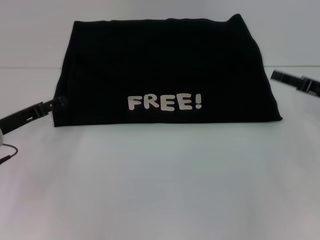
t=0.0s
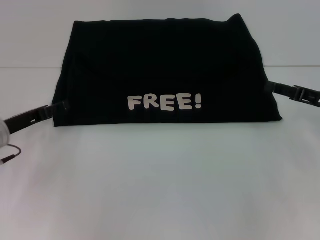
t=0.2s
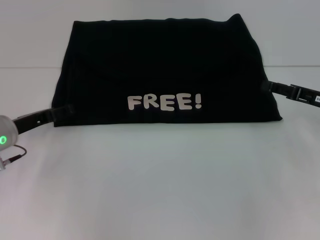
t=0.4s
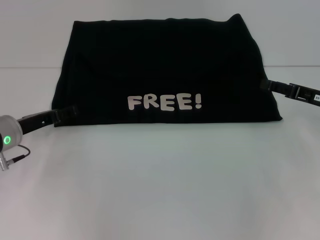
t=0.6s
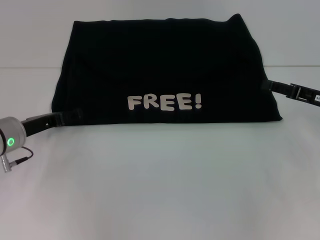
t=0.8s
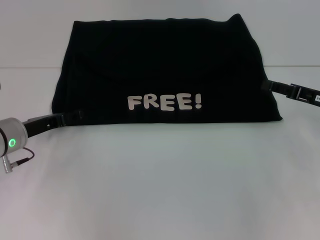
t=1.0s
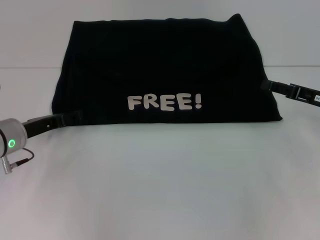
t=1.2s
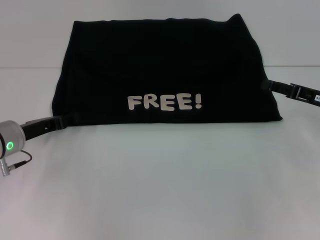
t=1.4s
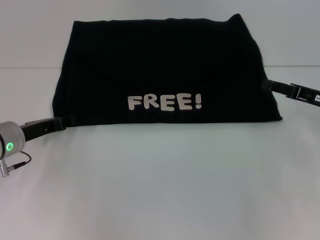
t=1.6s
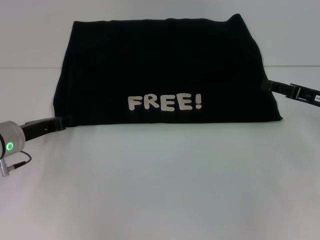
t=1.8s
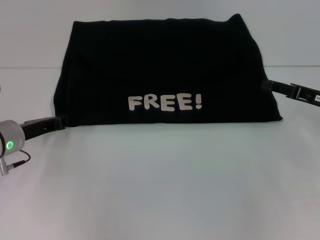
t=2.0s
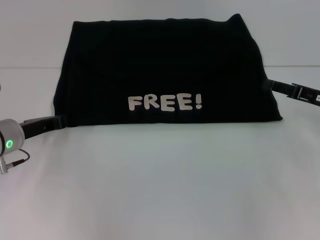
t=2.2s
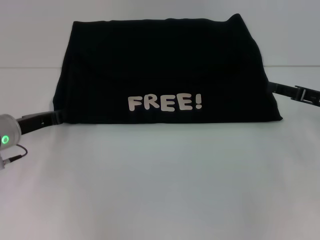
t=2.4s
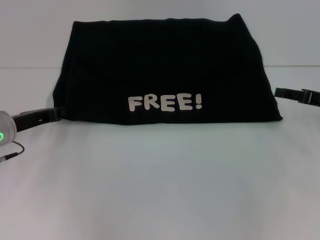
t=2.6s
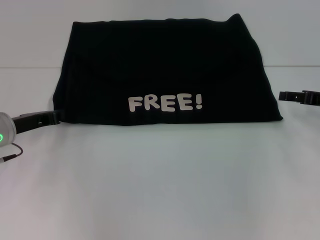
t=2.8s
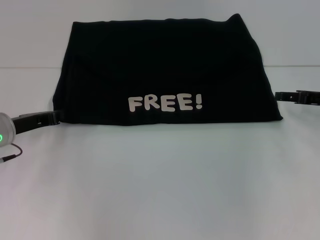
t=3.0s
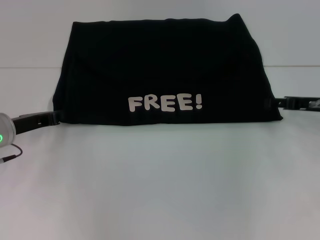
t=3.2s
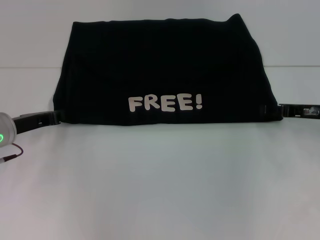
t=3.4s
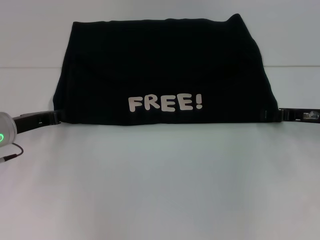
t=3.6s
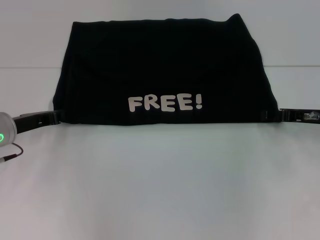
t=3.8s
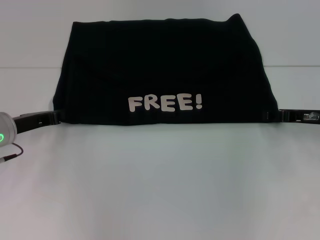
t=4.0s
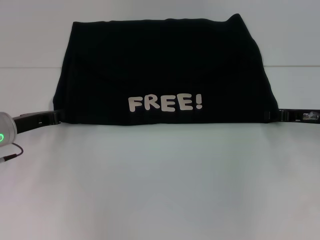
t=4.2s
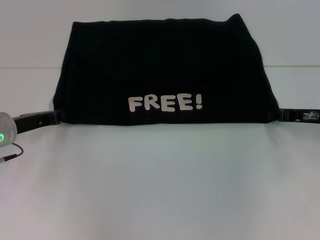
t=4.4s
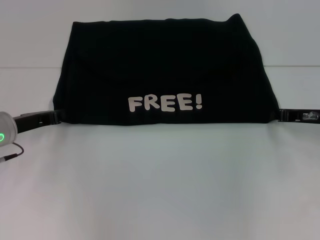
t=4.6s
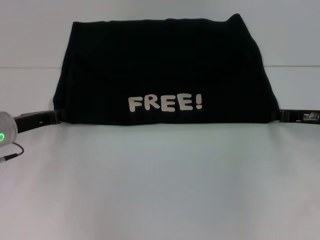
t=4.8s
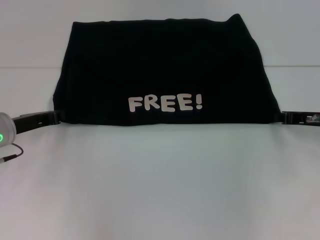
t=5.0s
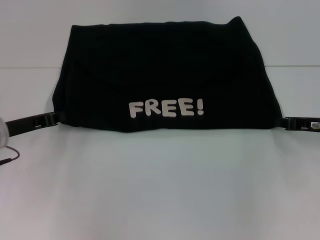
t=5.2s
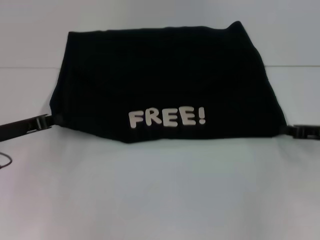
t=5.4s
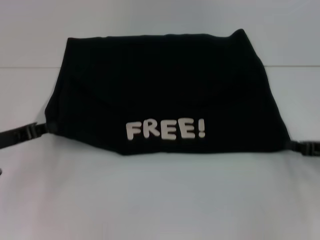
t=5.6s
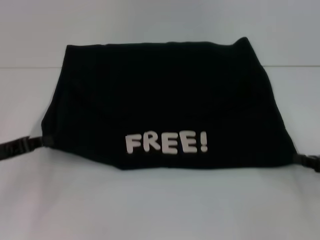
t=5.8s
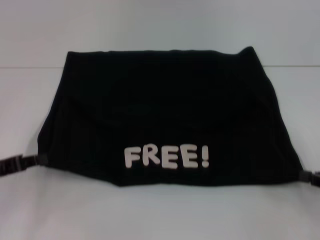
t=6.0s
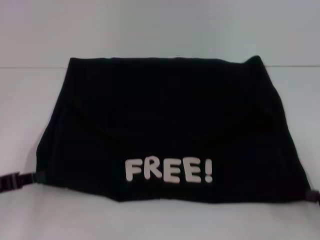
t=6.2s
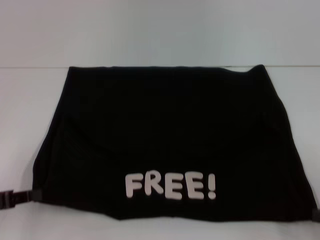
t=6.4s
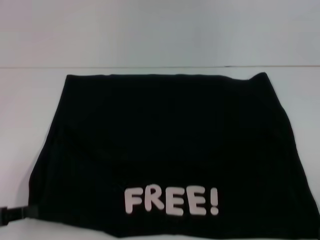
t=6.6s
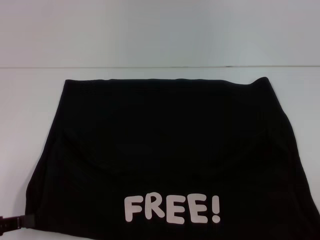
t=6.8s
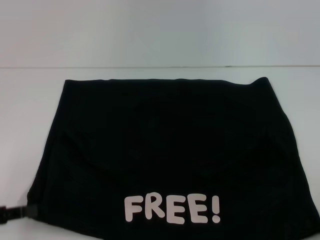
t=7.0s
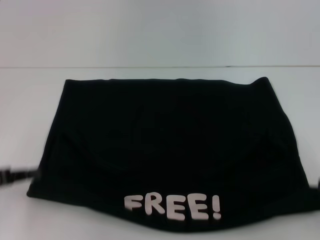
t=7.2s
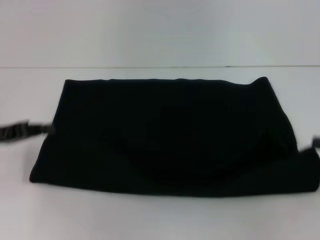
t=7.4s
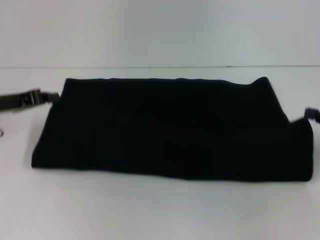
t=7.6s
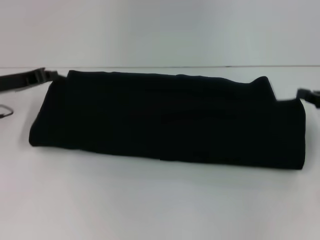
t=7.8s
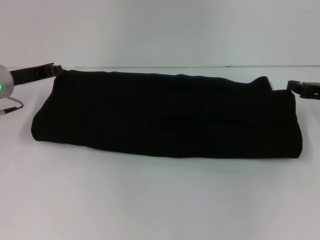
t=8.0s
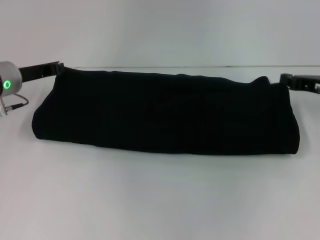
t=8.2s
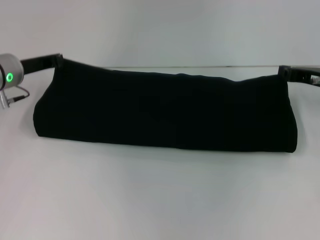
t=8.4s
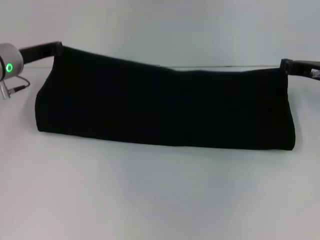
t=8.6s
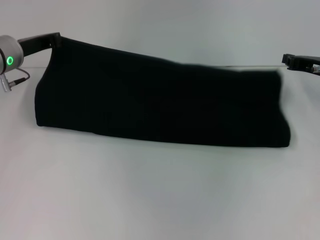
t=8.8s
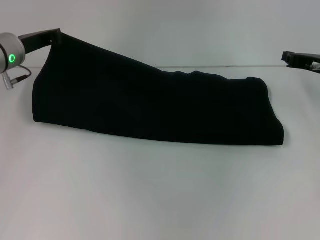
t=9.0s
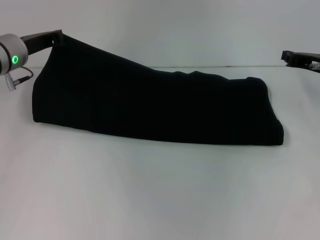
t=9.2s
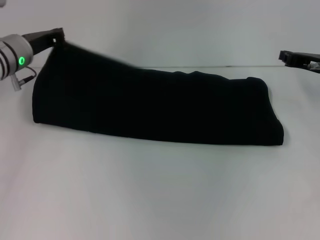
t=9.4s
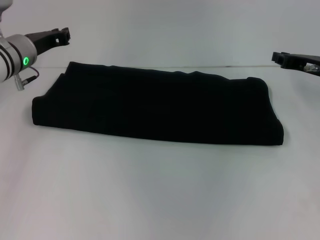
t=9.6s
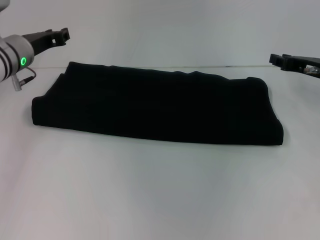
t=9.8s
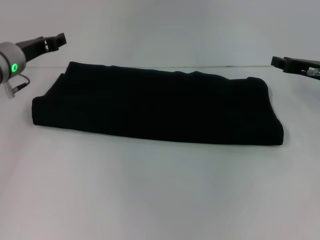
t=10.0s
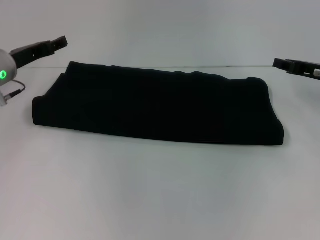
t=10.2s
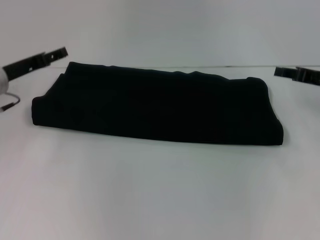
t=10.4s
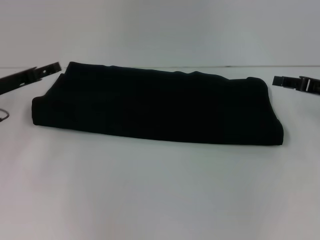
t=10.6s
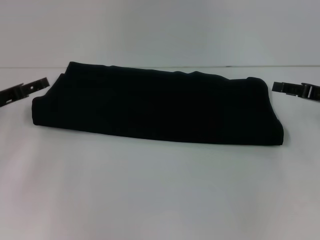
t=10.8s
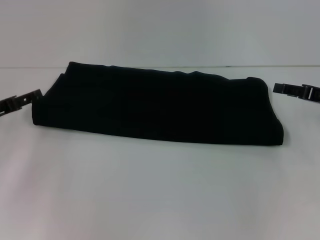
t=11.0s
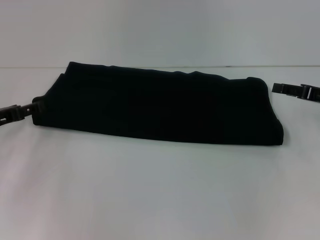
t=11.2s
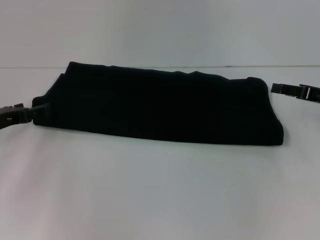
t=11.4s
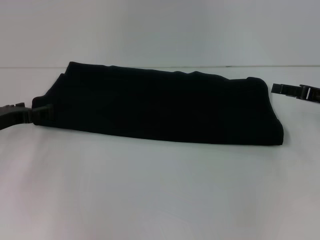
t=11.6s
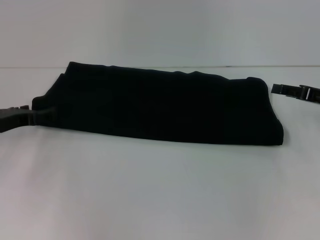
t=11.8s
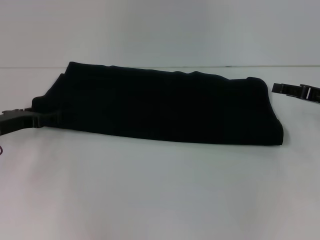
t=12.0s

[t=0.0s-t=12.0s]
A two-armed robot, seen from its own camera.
Step, t=0.0s to t=6.6s: Pull the clothes with your left hand.
Step, t=0.0s to t=6.6s: Pull the clothes with your right hand.
Step, t=6.8s to t=9.6s: Fold the clothes with your left hand.
Step, t=6.8s to t=9.6s: Fold the clothes with your right hand.
t=0.0s to t=1.6s: The grippers move only a little.
t=1.6s to t=3.0s: The left gripper closes its fingers.
t=3.0s to t=4.4s: The grippers move only a little.
t=4.4s to t=6.0s: The right gripper goes some 15 cm backward and to the right, and closes. Meanwhile the left gripper is displaced backward by roughly 10 cm.
t=6.0s to t=7.6s: The left gripper moves forward, approximately 10 cm. Meanwhile the right gripper travels backward and back again, about 10 cm each way.
t=7.6s to t=9.0s: The left gripper goes some 10 cm forward and to the right, while the right gripper shifts approximately 15 cm forward and to the left.
t=9.0s to t=10.4s: The right gripper opens its fingers. Meanwhile the left gripper ends up some 5 cm from where it was, and opens.
t=10.4s to t=12.0s: The left gripper moves some 5 cm.

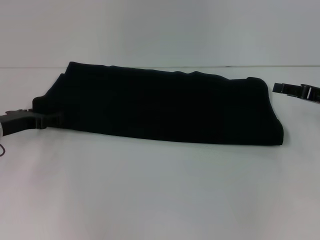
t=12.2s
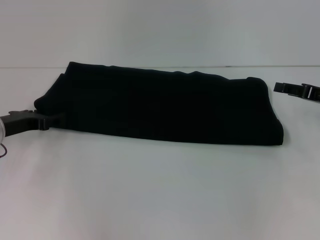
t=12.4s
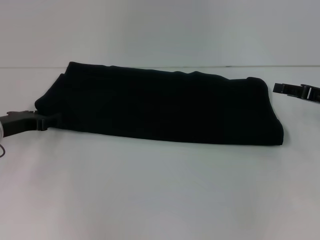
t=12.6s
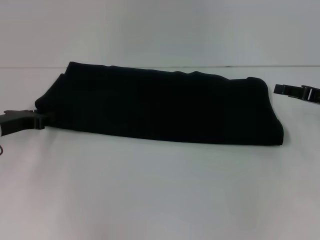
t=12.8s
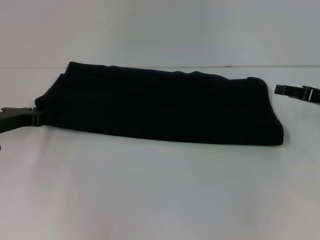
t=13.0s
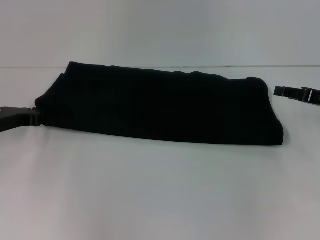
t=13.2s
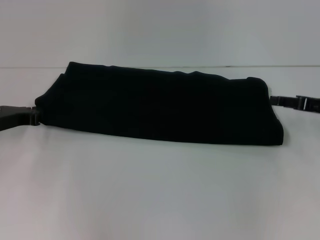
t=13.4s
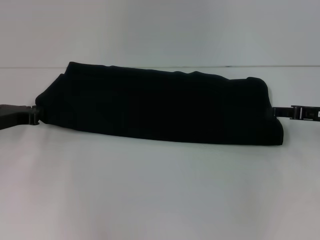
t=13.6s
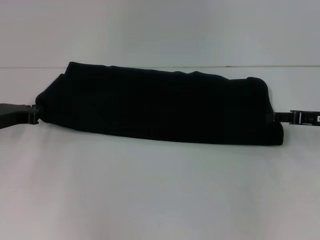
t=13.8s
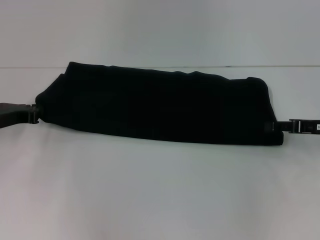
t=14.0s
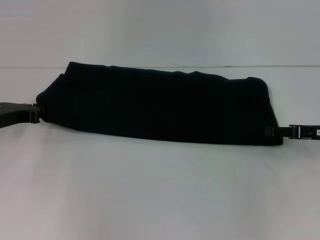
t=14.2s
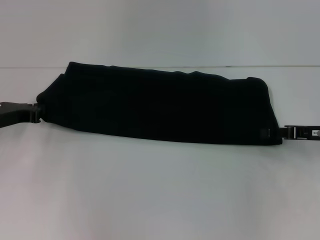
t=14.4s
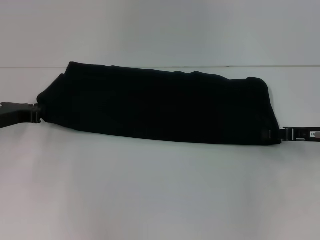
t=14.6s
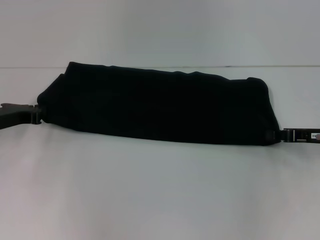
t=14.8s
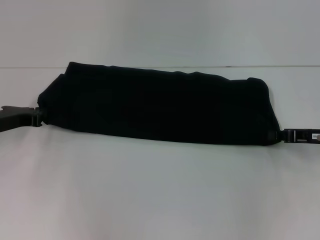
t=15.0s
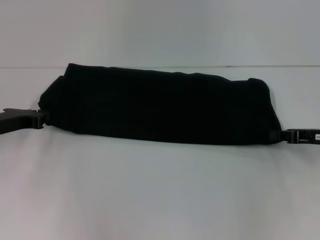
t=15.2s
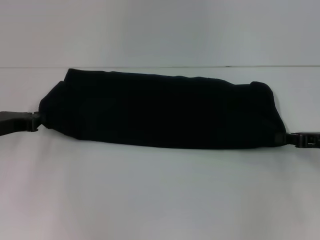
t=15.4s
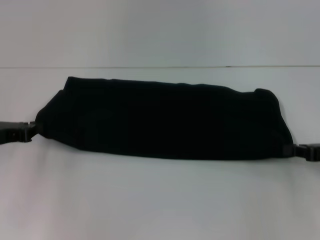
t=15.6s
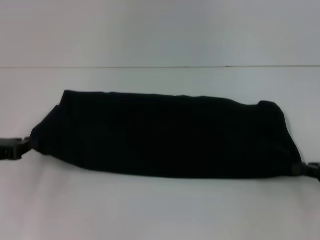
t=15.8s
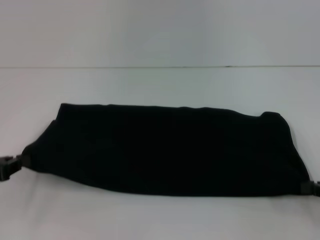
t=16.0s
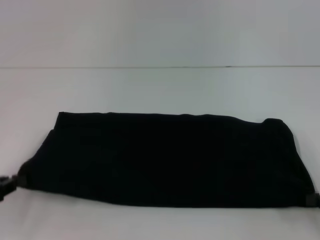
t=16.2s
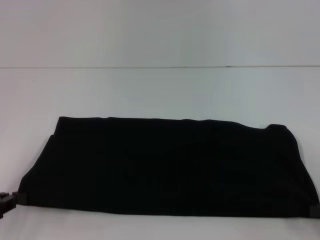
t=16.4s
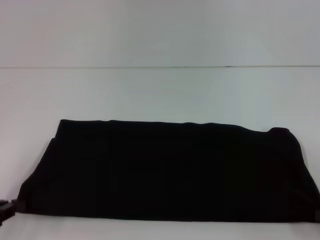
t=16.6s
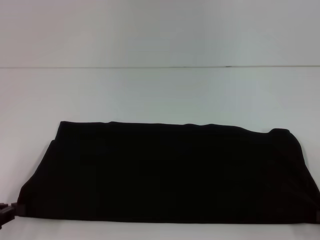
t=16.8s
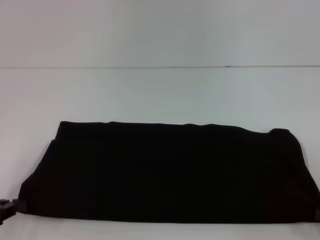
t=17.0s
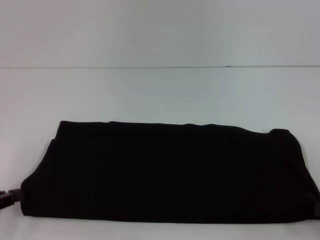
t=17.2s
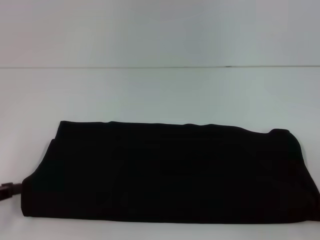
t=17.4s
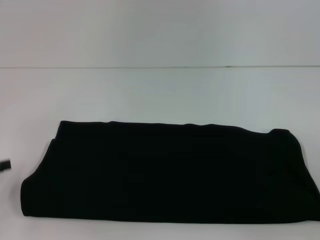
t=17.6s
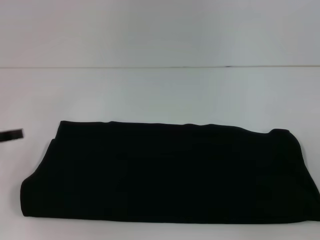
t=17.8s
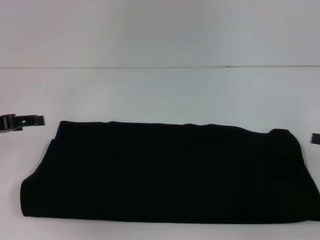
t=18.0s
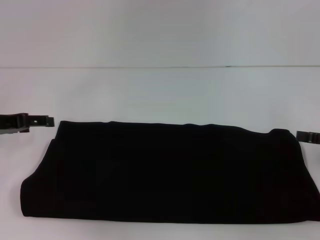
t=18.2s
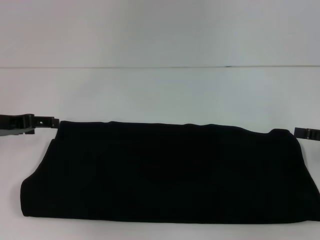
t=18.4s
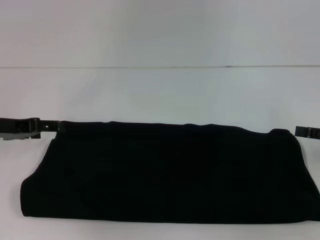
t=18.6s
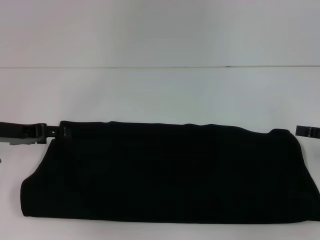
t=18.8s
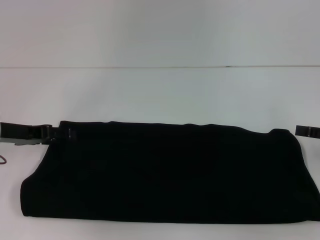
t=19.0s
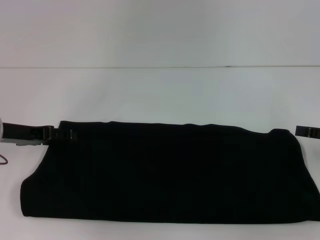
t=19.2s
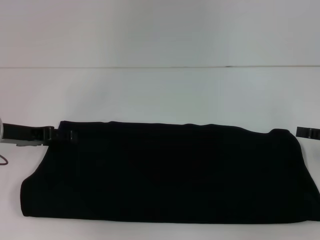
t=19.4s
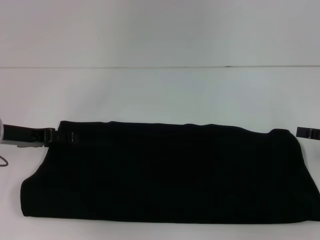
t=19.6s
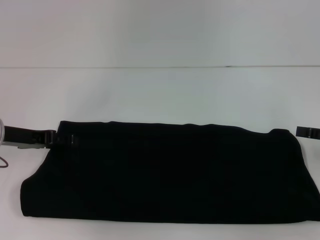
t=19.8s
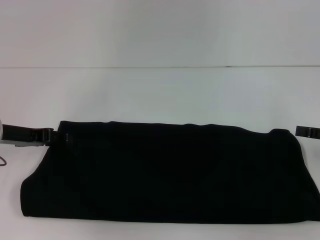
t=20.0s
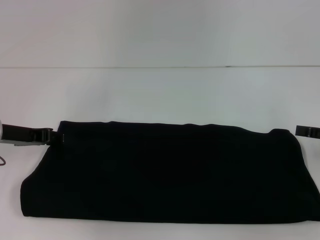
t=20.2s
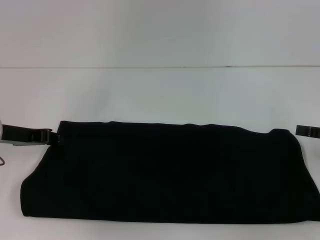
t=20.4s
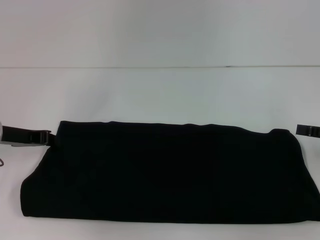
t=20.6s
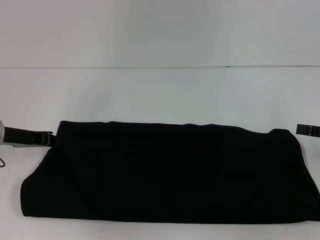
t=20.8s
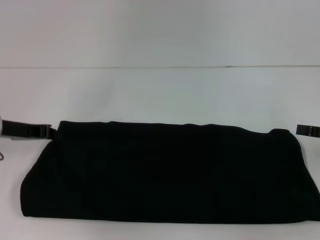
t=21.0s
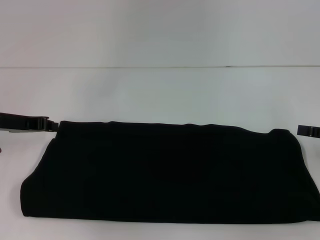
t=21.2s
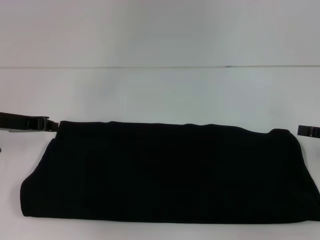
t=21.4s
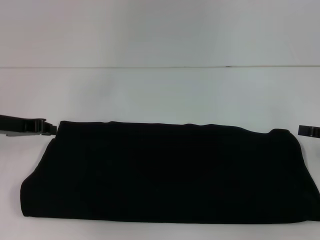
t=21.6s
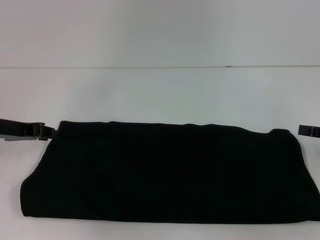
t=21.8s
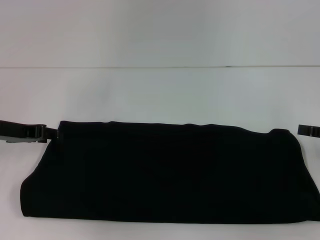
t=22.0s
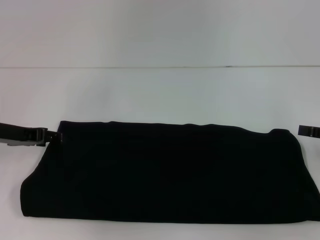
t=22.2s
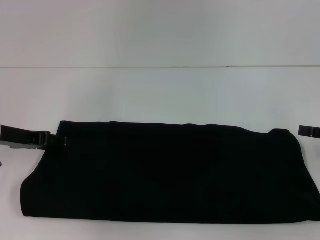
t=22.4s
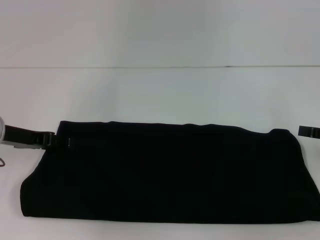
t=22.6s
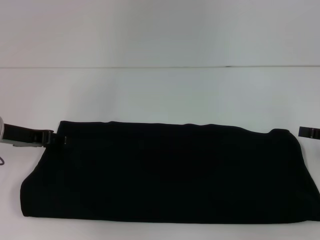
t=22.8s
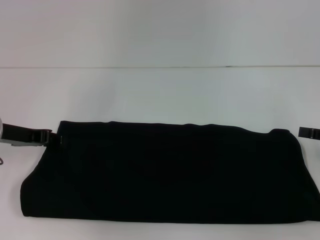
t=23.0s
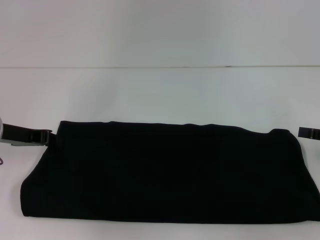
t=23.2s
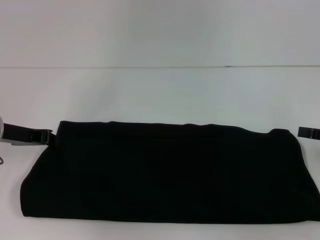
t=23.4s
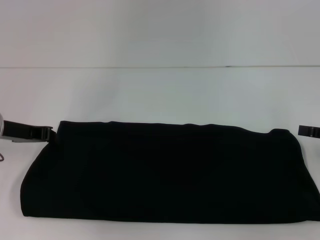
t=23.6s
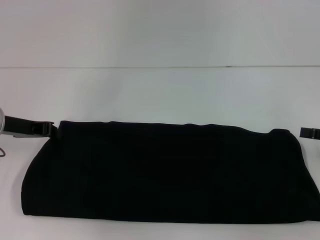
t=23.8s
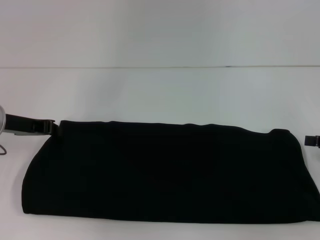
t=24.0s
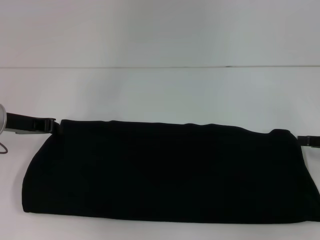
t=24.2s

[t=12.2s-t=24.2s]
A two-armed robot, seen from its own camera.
Step, t=12.2s to t=16.8s: Pull the clothes with your left hand.
Step, t=12.2s to t=16.8s: Pull the clothes with your right hand.
t=12.2s to t=13.8s: The left gripper closes.
t=13.8s to t=15.2s: The right gripper closes its fingers.
t=15.2s to t=16.6s: The right gripper shifts roughly 15 cm backward and to the right. The left gripper shifts approximately 15 cm backward.
t=16.6s to t=18.2s: The left gripper shifts about 15 cm forward, and opens its fingers, while the right gripper shifts some 10 cm forward and upward, and opens.
t=18.2s to t=19.8s: The grippers stay close to where they were, moving slightly.
t=19.8s to t=21.2s: The left gripper closes.
t=21.2s to t=22.6s: The left gripper opens up.
t=22.6s to t=24.2s: The left gripper closes up.
